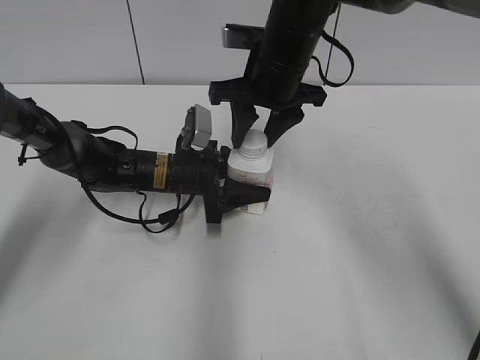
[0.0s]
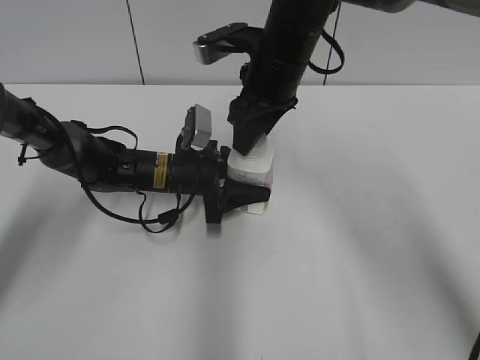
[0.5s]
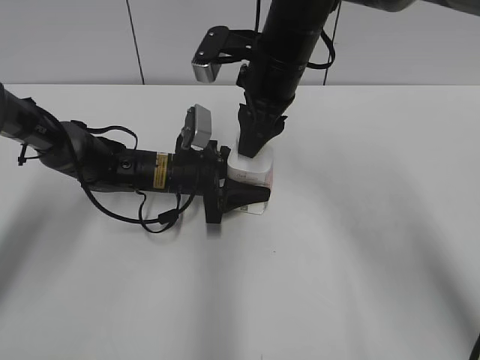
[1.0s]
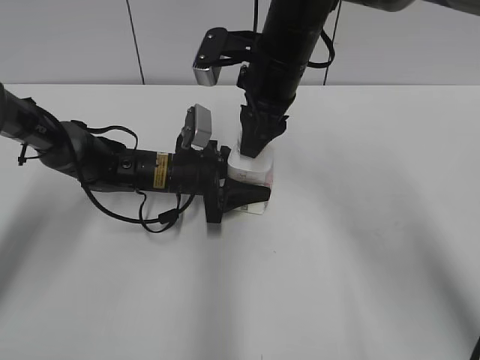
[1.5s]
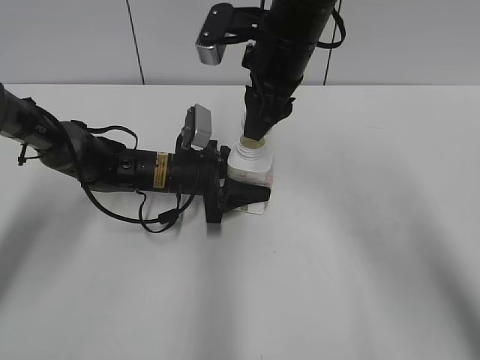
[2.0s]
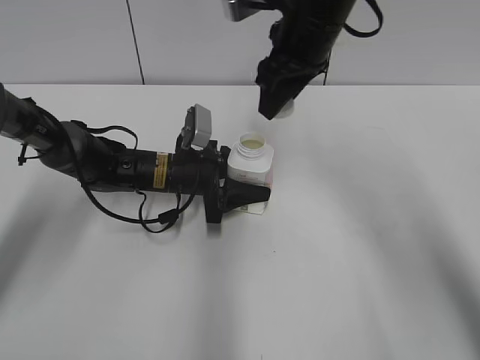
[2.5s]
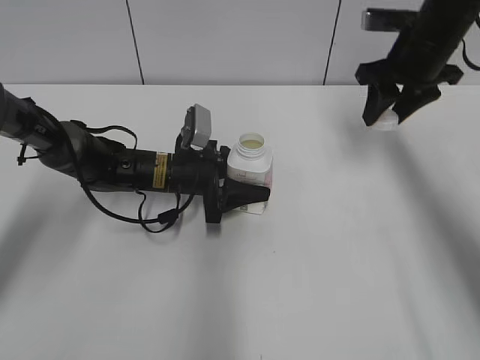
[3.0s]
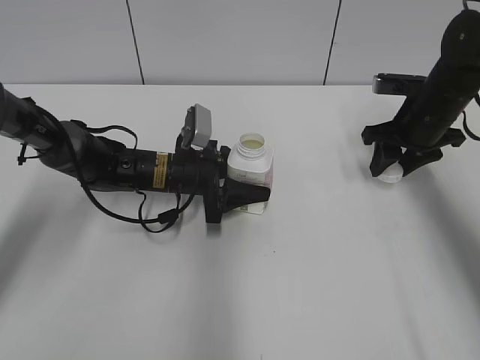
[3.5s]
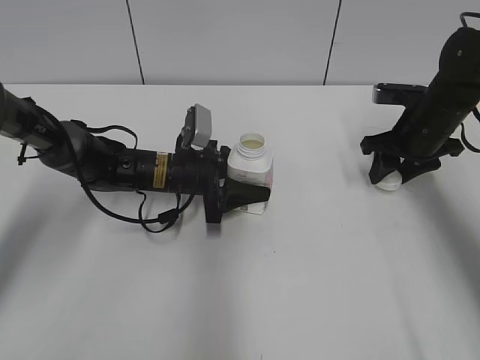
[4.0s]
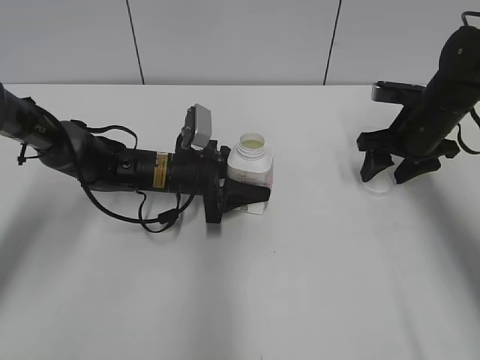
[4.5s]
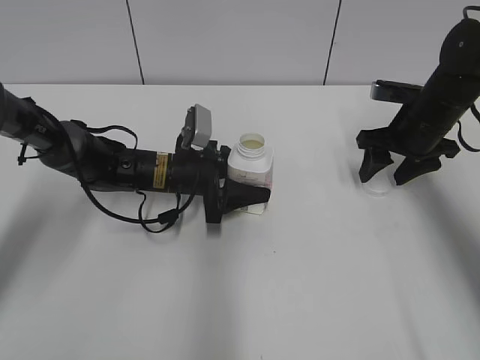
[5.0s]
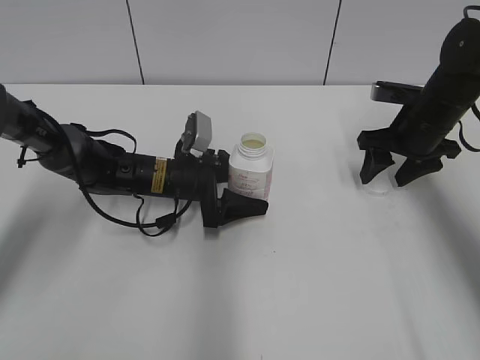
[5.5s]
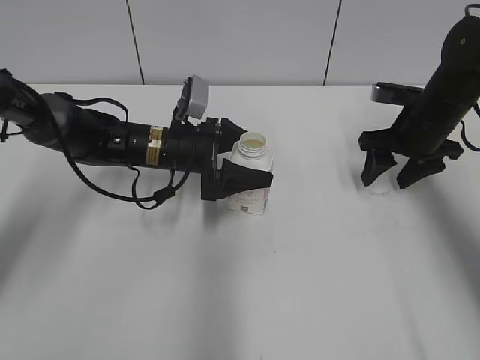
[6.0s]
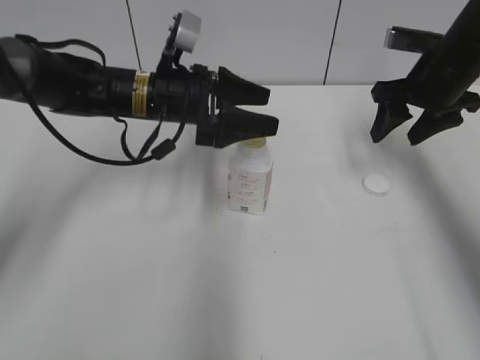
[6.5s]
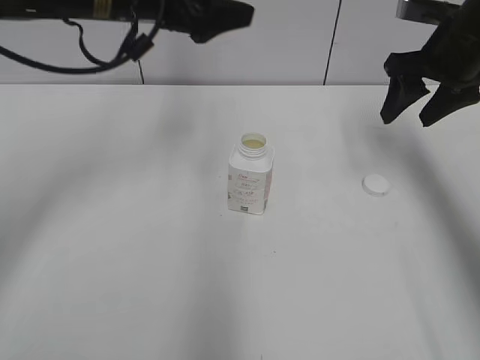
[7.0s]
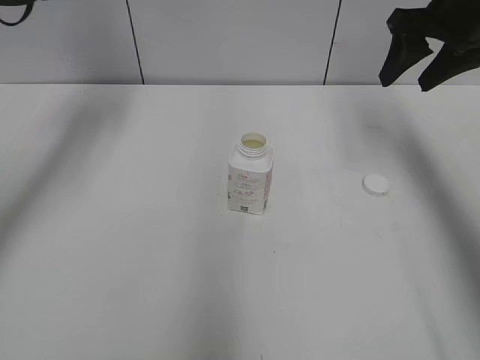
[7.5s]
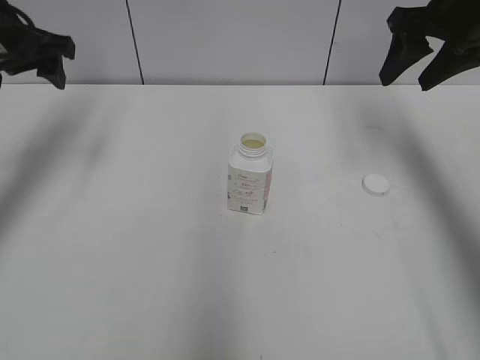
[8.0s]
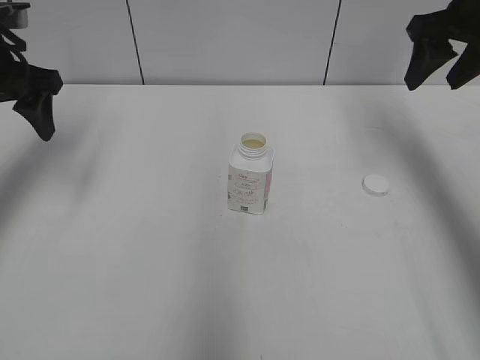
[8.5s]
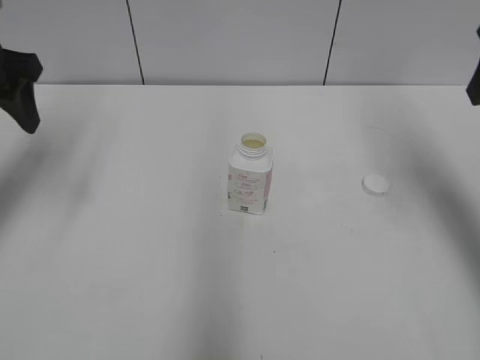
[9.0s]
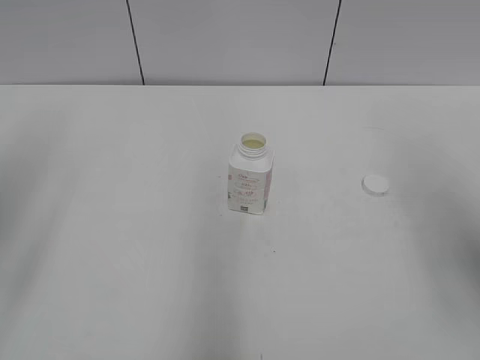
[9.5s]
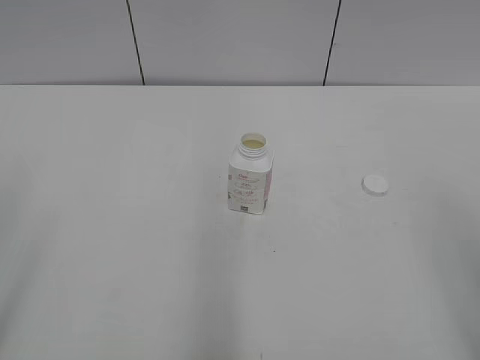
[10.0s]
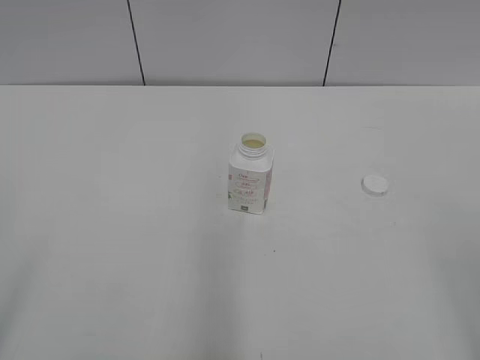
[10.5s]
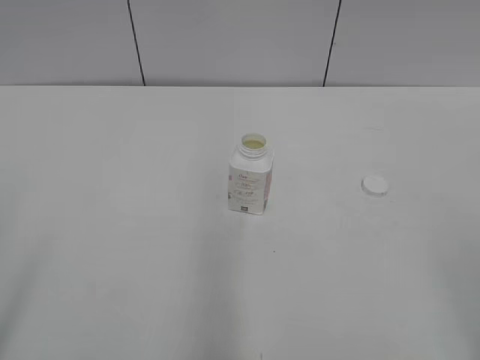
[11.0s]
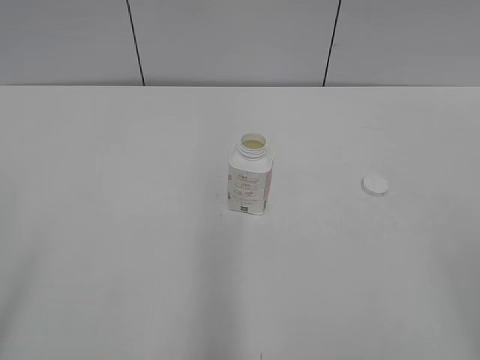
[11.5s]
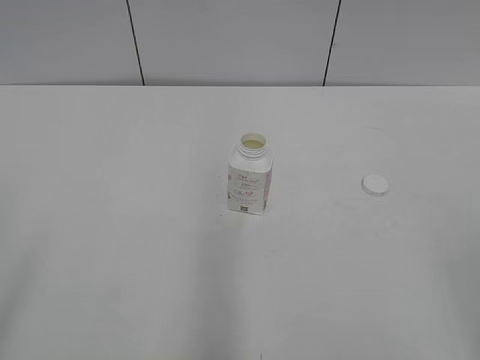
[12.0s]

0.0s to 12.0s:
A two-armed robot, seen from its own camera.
Step, 0.0s to 2.0s: Unscrew the bottle cap with the right gripper while holding the bottle with the left gripper.
Step, 2.5s to 4.5s: Place the bottle cap on the table with the right gripper.
Step, 5.0s to 5.5s: Place the bottle on the table with the left gripper.
2.0s to 4.0s: The right gripper shifts roughly 25 cm to the right and downward.
4.0s to 6.0s: The right gripper opens. The left gripper opens its fingers.
6.0s to 8.0s: The left gripper heads upward and to the left, covering about 25 cm, while the right gripper goes roughly 15 cm upward.
8.0s to 10.0s: Both grippers move backward, approximately 35 cm.

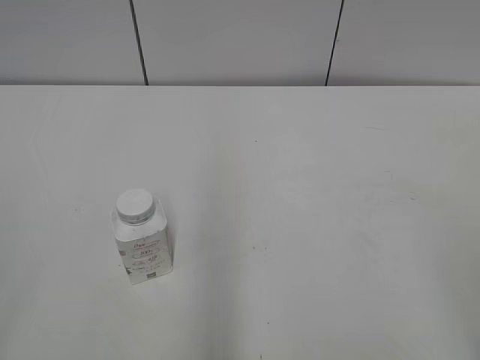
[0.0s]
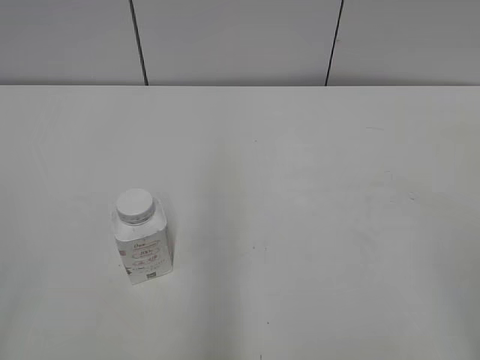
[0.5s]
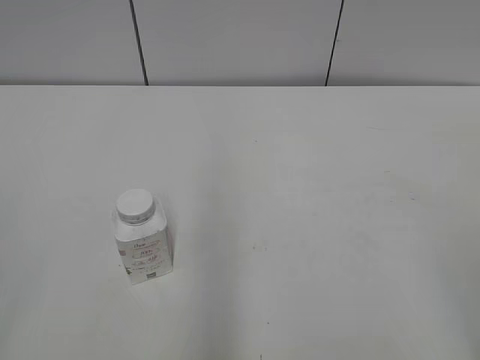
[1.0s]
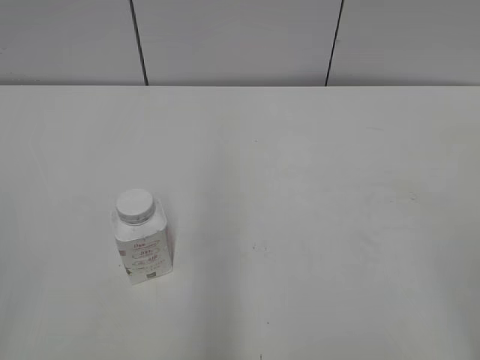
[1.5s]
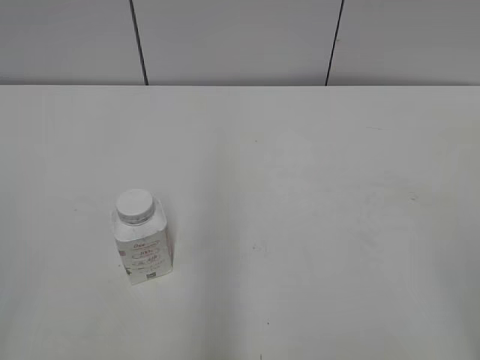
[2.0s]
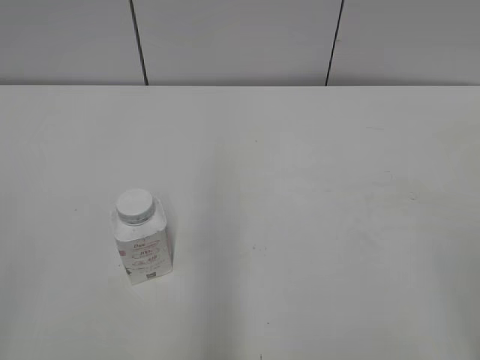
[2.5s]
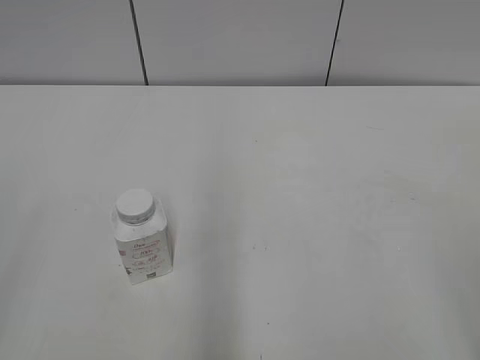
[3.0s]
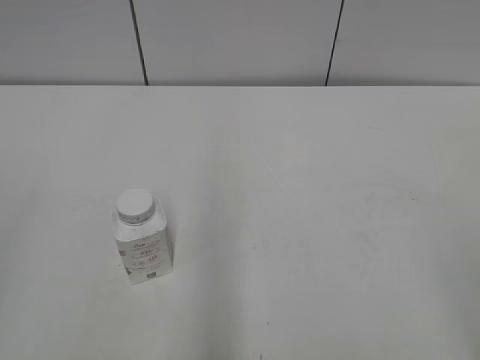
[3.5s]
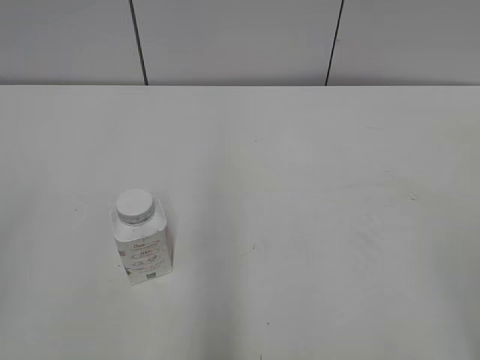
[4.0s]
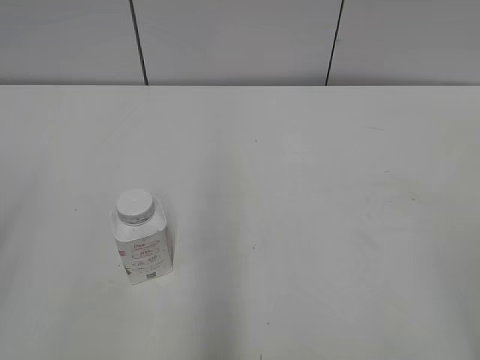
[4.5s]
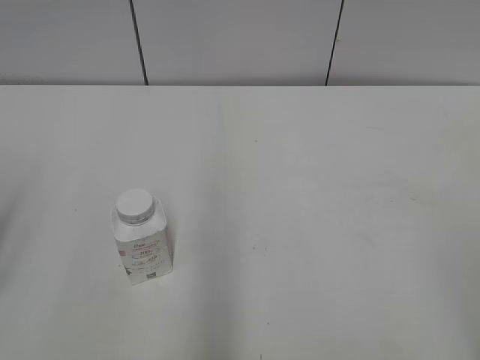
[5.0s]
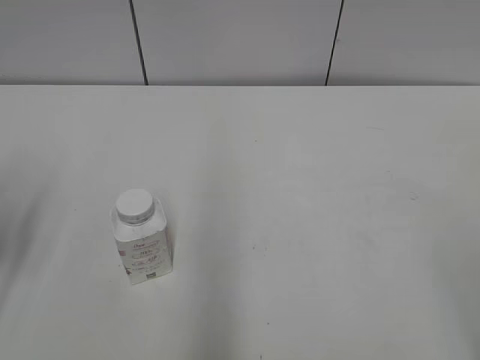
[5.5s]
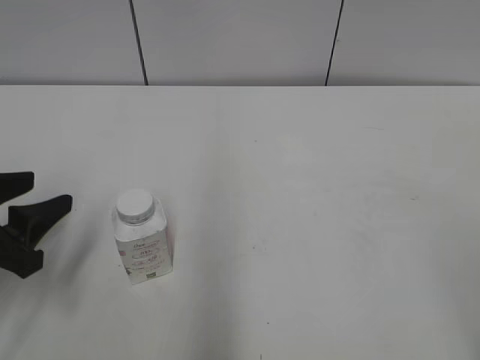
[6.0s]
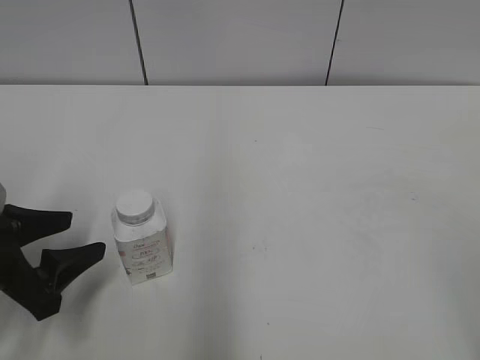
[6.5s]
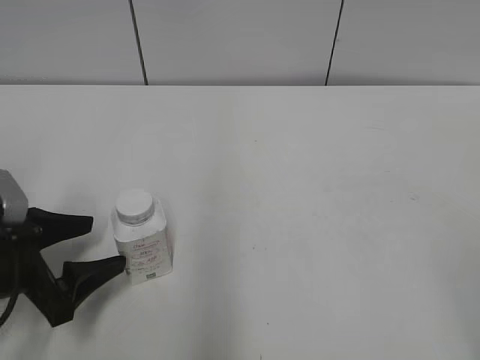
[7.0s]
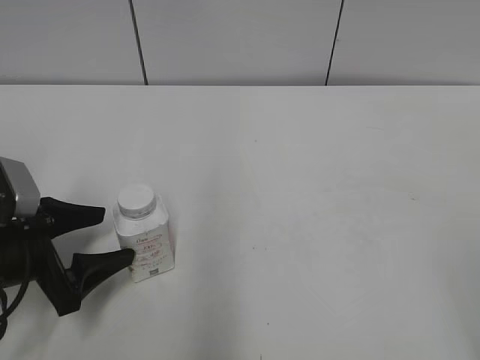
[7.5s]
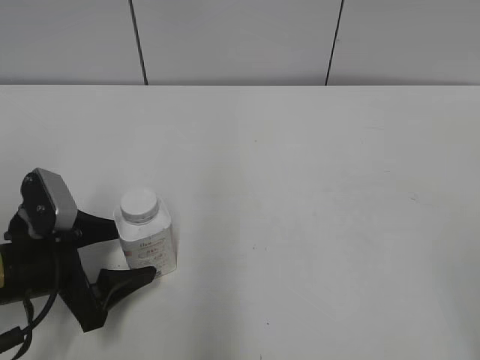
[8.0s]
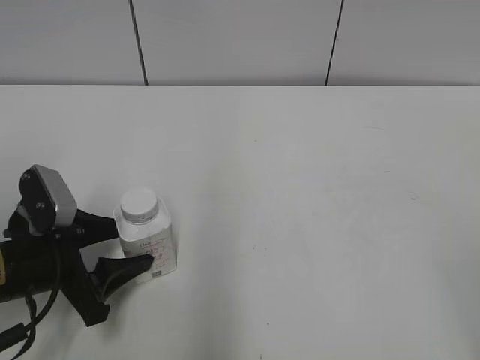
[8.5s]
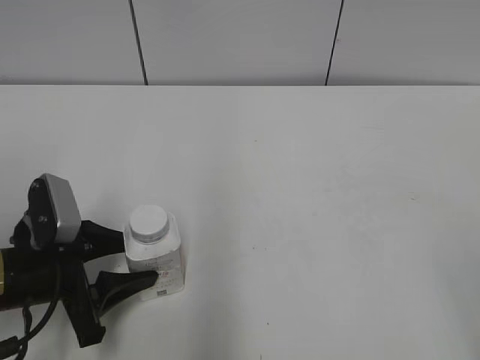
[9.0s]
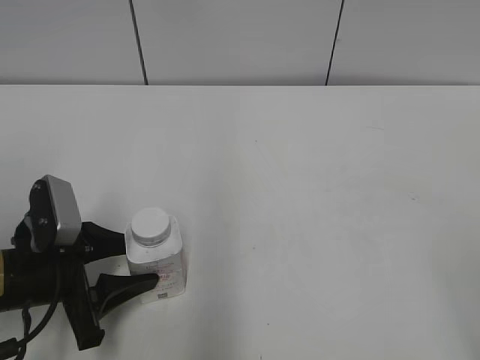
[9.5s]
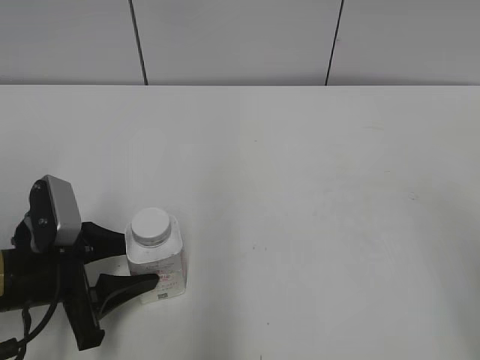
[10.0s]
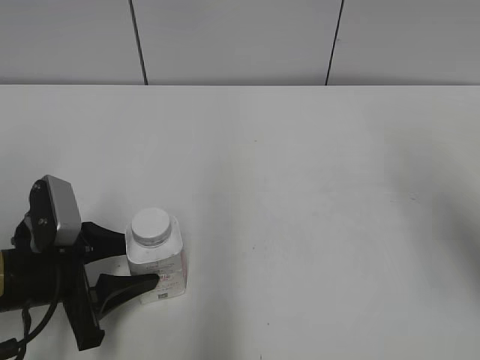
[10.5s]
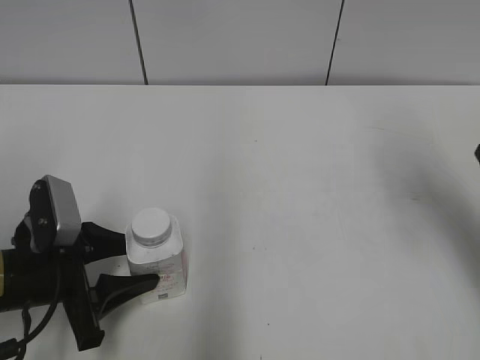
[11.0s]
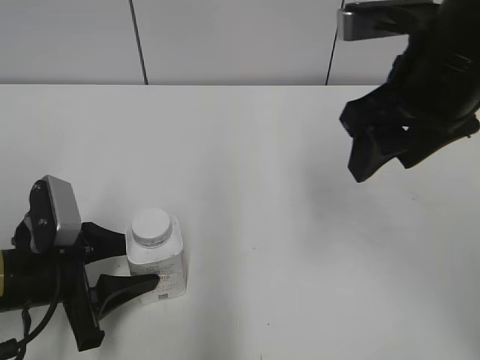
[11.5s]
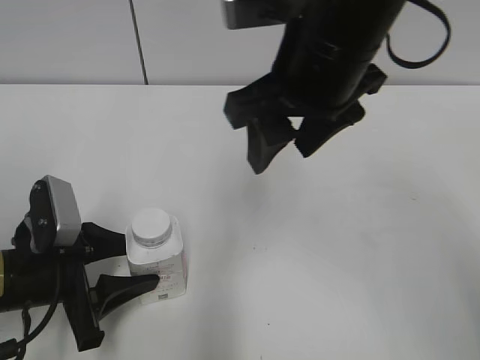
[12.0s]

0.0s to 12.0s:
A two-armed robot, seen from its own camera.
Step, 0.0s to 8.5s: Grab the Yili Changqing with the left hand.
Step, 9.0s to 10.5s: Move the Yili Changqing from left to right.
4.0s to 6.0s: The left gripper travels forward and downward by about 20 cm.
6.0s to 8.0s: The left gripper is displaced downward and to the right by approximately 10 cm, and opens its fingers.
8.0s to 10.0s: The left gripper closes.
10.0s to 12.0s: The right gripper shifts roughly 30 cm to the left and forward.

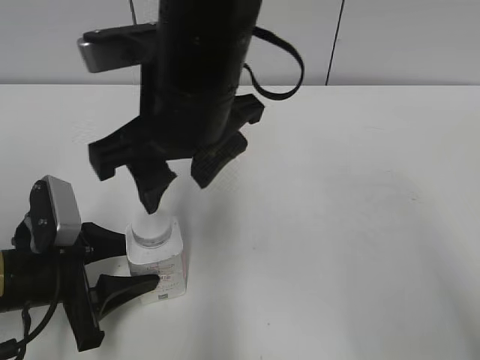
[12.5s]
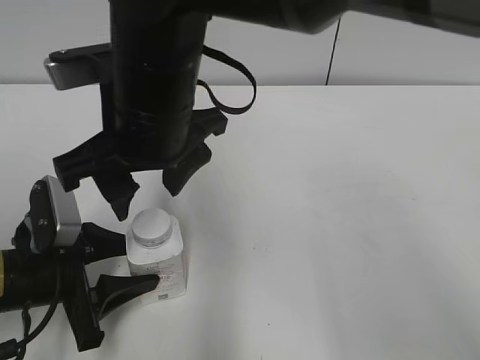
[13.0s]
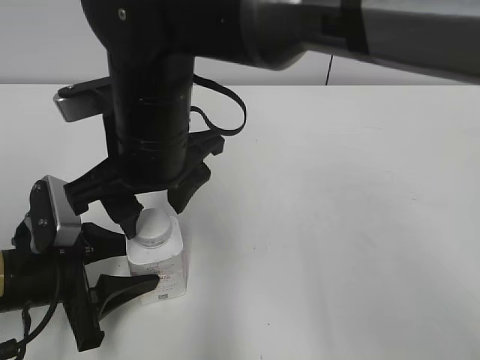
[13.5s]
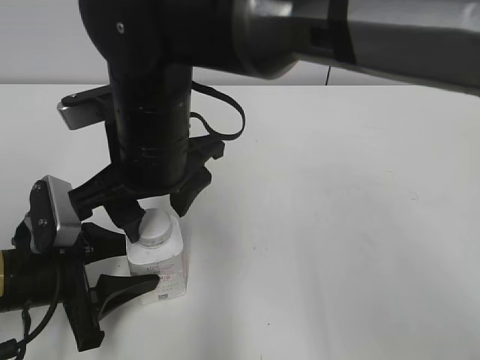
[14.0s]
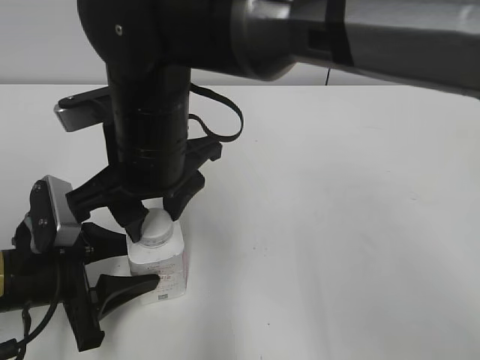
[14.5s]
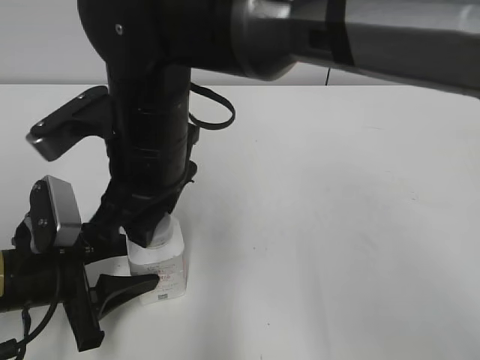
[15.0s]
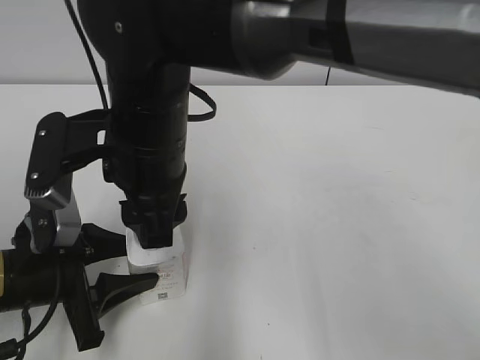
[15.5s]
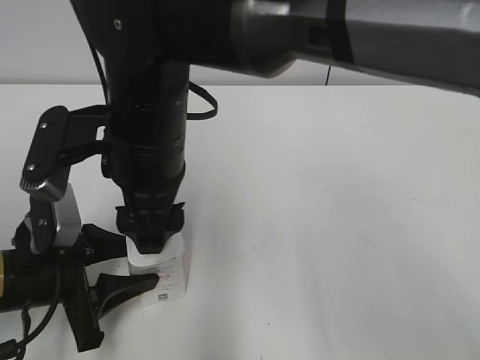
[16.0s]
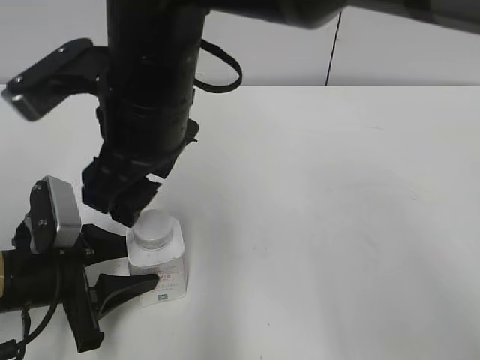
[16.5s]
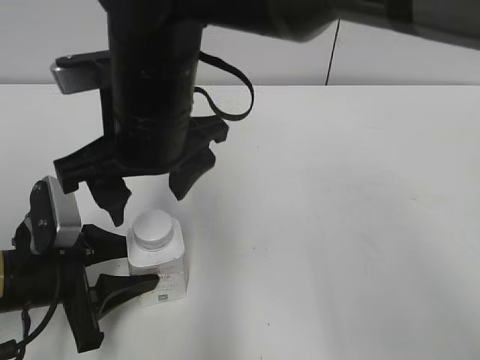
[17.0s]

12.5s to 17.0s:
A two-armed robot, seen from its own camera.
12.5s to 14.5s: The right gripper heads downward, covering approximately 5 cm, and closes up.
14.5s to 17.0s: The right gripper opens.
